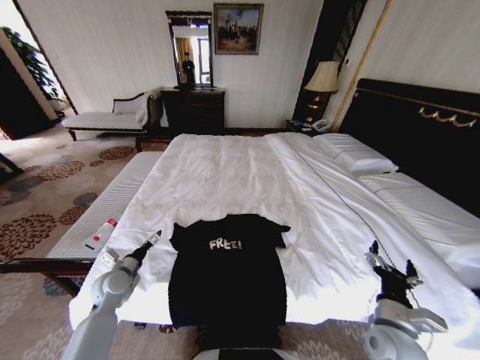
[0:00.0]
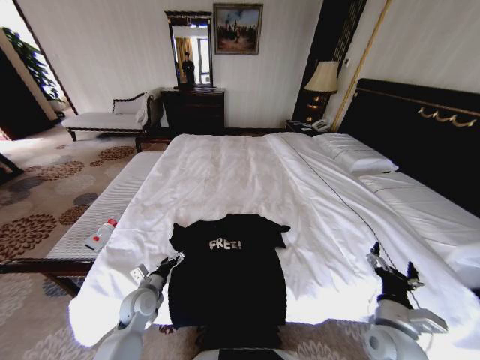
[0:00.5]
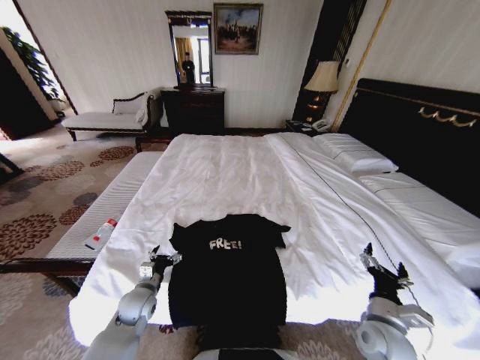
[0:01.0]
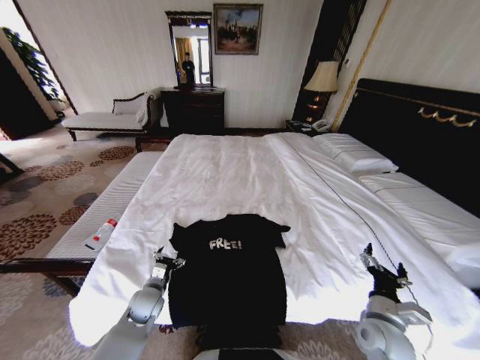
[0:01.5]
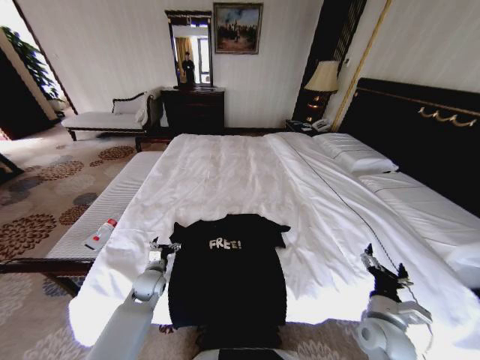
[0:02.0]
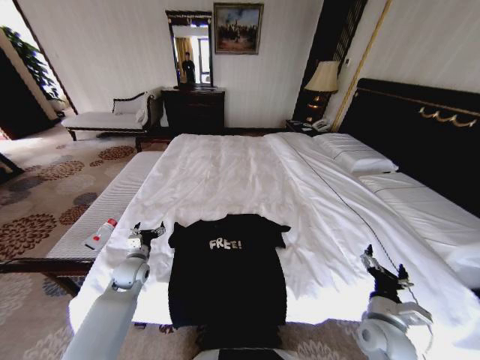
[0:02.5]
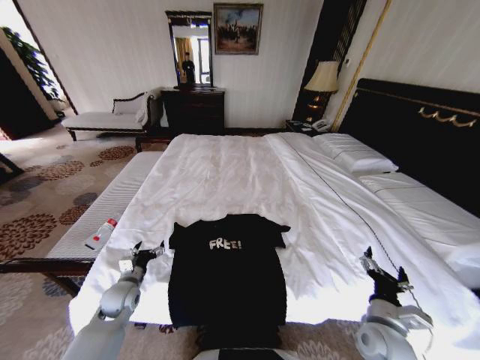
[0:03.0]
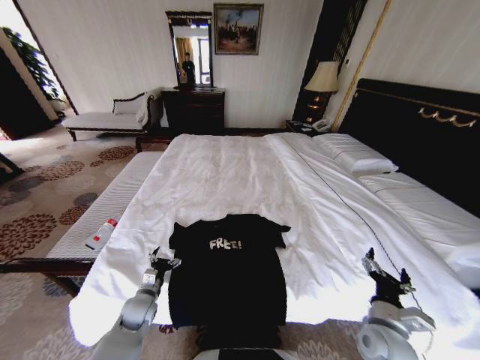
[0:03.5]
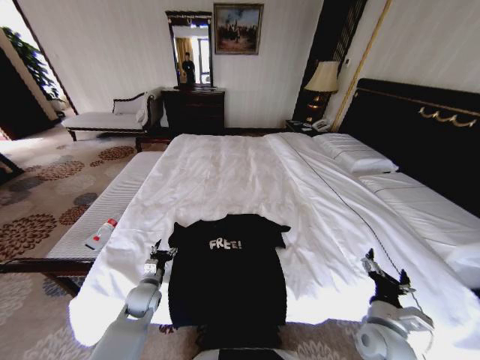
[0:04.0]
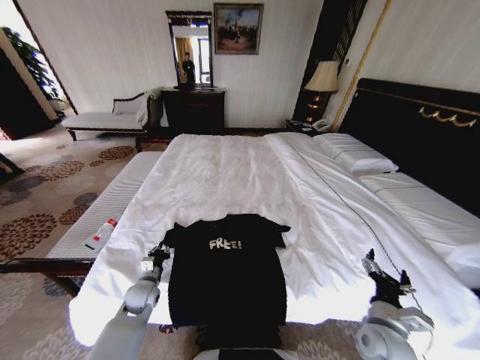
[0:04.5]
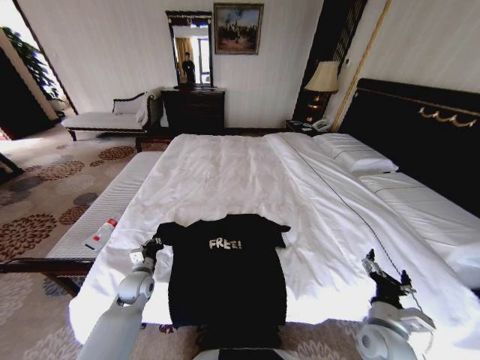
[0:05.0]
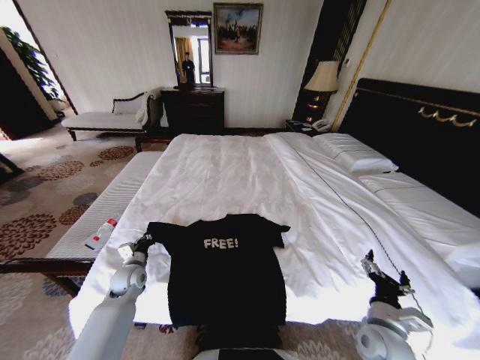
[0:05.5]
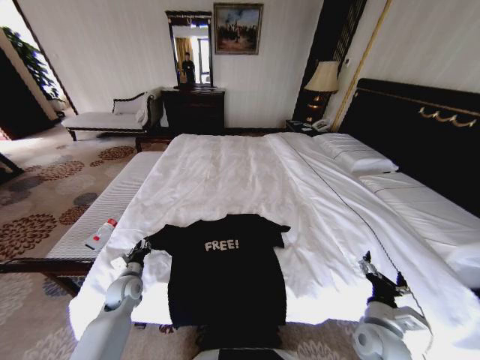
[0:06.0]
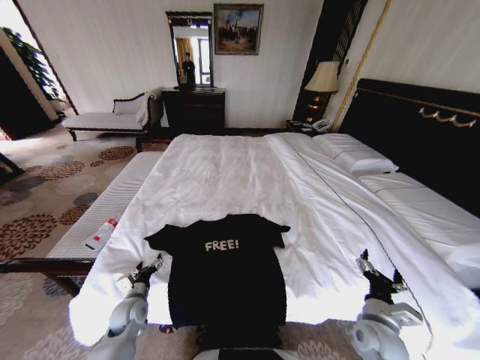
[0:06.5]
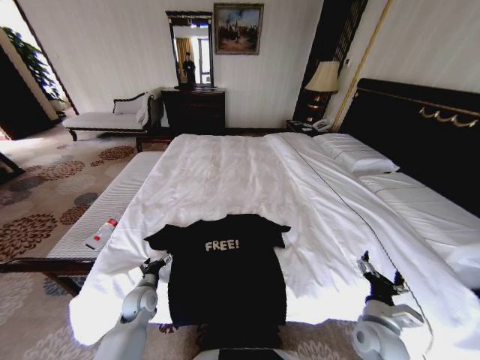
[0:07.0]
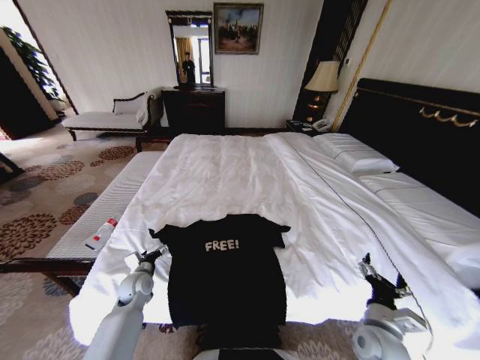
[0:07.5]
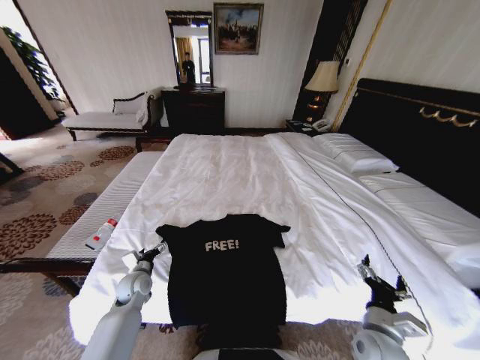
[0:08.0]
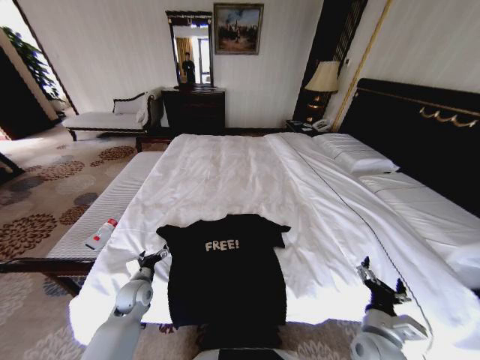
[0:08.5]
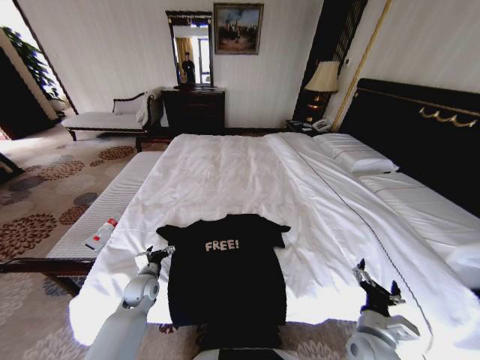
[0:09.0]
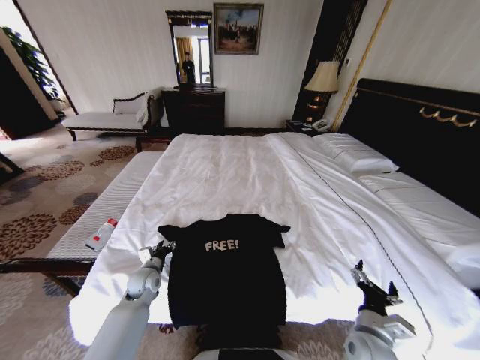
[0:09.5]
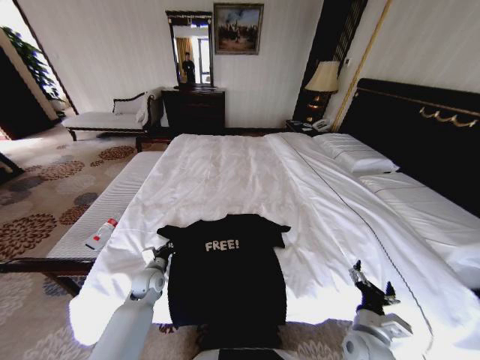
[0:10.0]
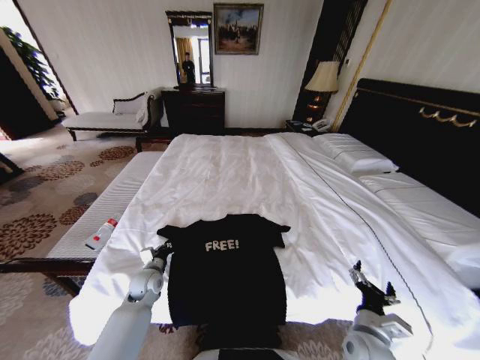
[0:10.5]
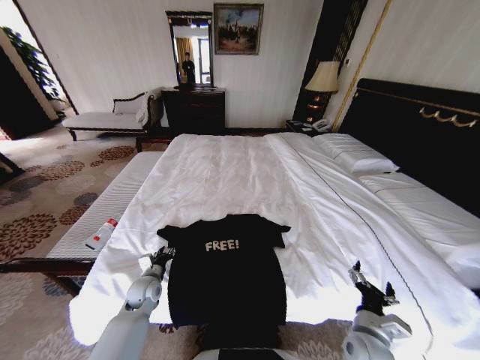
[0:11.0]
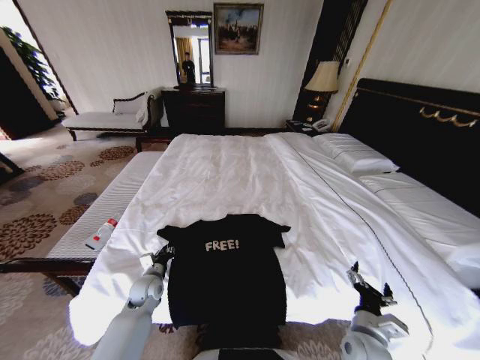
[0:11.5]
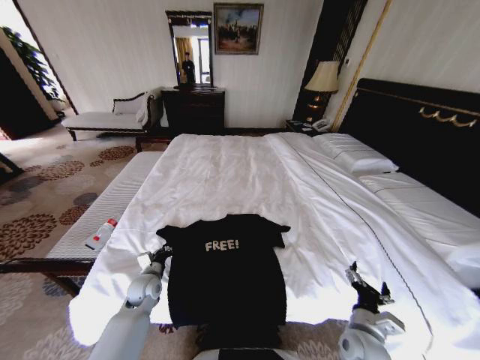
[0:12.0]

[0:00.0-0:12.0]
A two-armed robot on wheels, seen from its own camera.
Task of the whole recording: Fold the clothes on the bed.
0:00.0 to 0:02.0: The left gripper is displaced to the right and downward by about 10 cm.
0:04.0 to 0:06.0: The left gripper travels to the left by roughly 5 cm, and closes up.
0:06.0 to 0:08.0: The left gripper opens.
0:08.0 to 0:10.0: The left gripper closes up.
0:10.0 to 0:12.0: The left gripper opens and closes again.

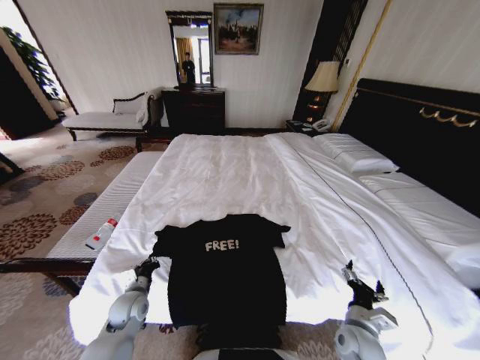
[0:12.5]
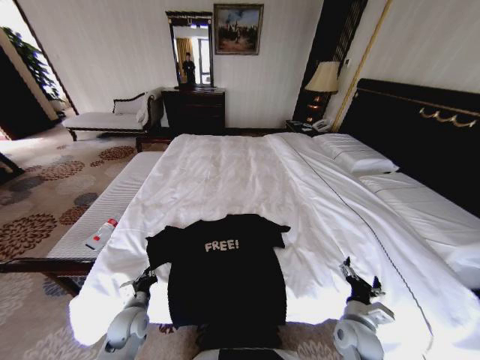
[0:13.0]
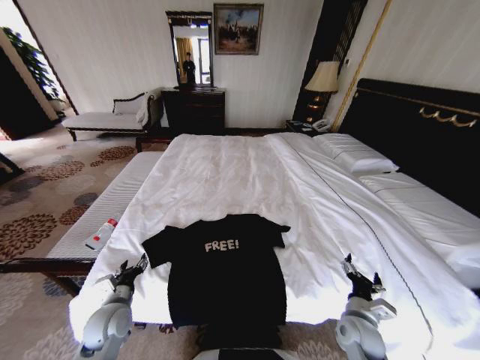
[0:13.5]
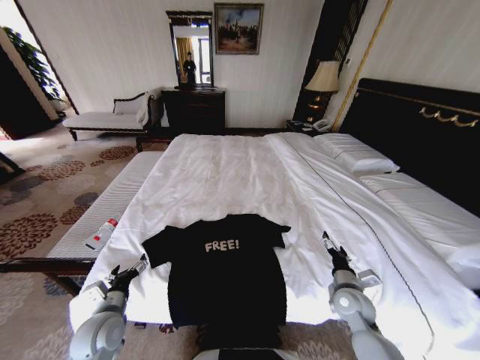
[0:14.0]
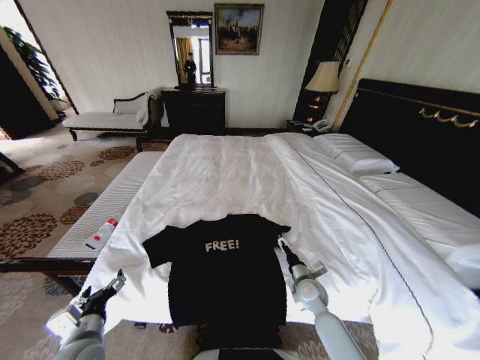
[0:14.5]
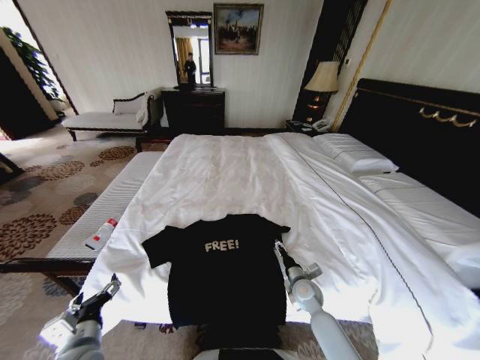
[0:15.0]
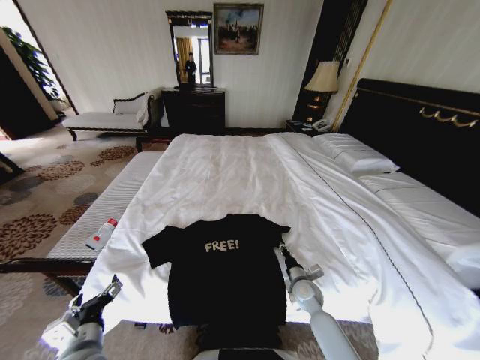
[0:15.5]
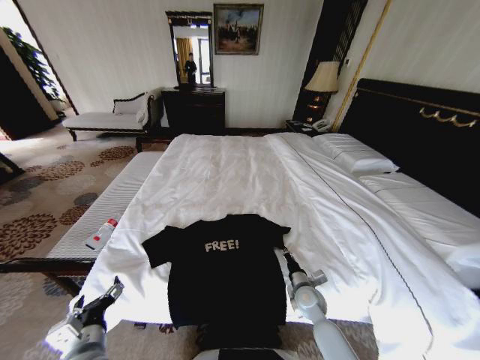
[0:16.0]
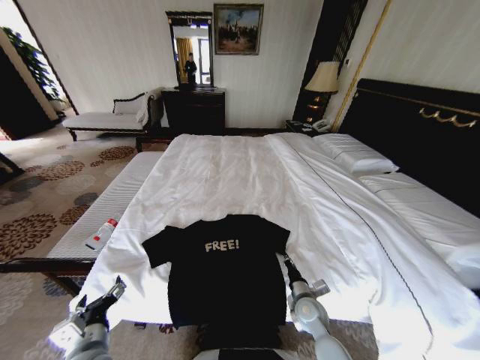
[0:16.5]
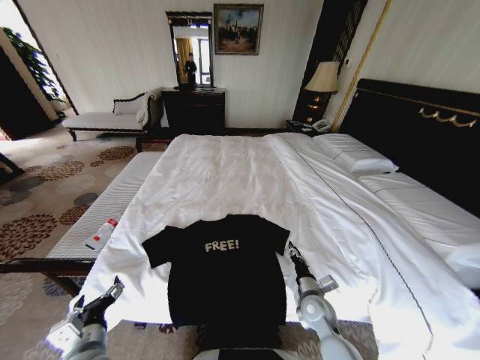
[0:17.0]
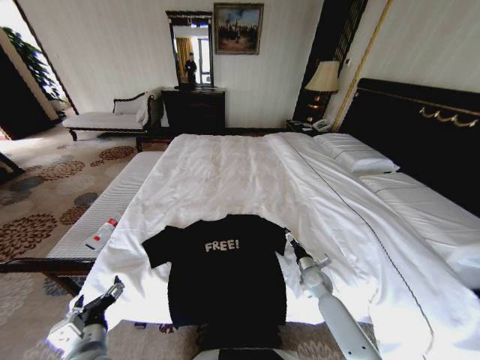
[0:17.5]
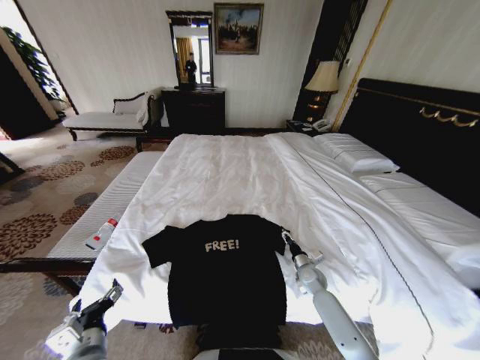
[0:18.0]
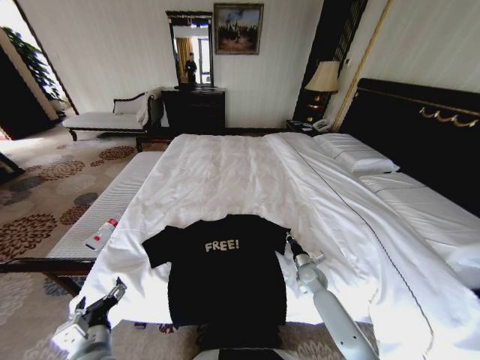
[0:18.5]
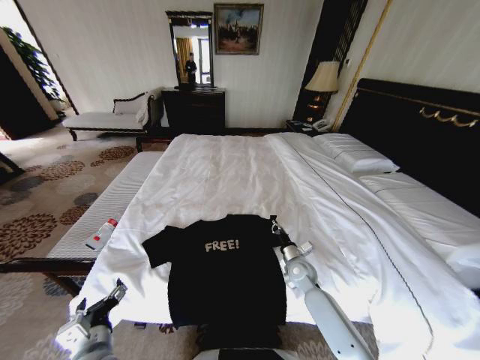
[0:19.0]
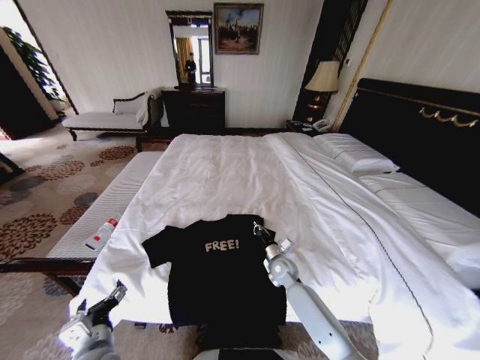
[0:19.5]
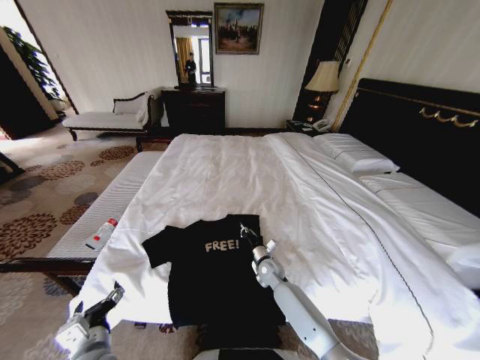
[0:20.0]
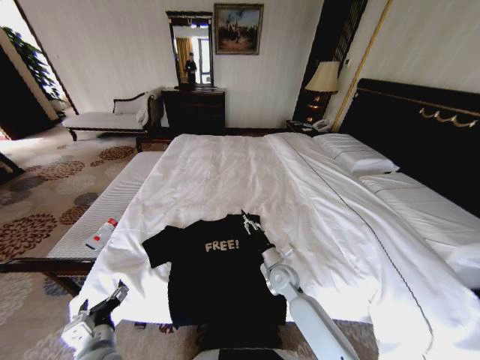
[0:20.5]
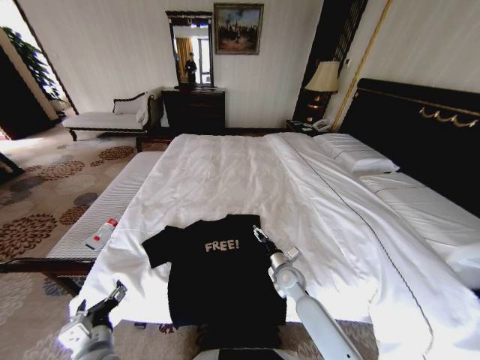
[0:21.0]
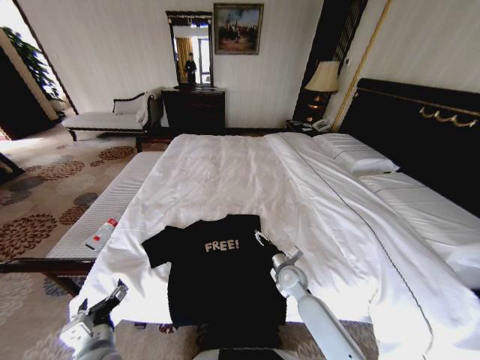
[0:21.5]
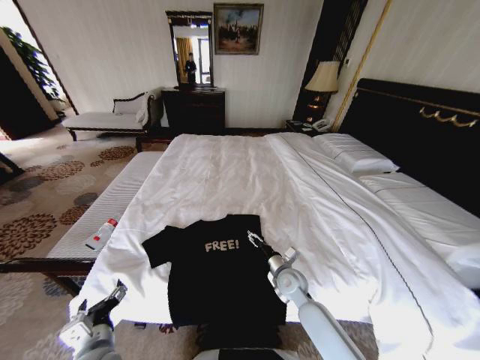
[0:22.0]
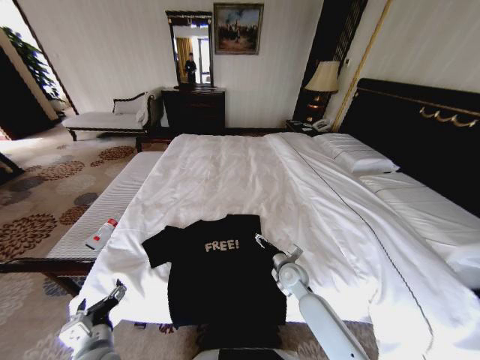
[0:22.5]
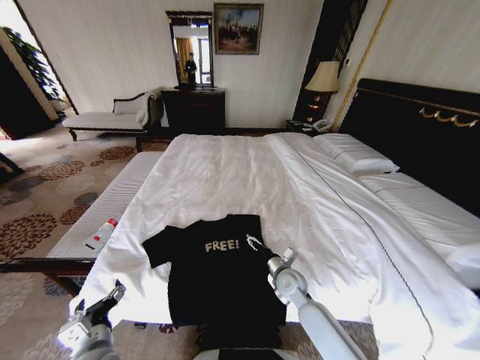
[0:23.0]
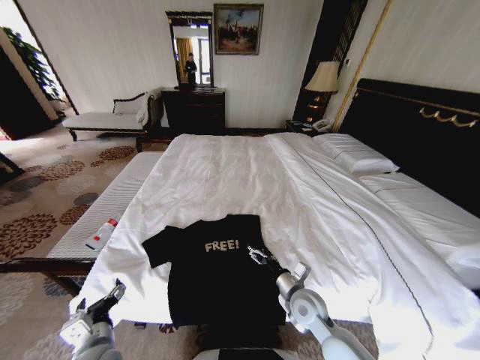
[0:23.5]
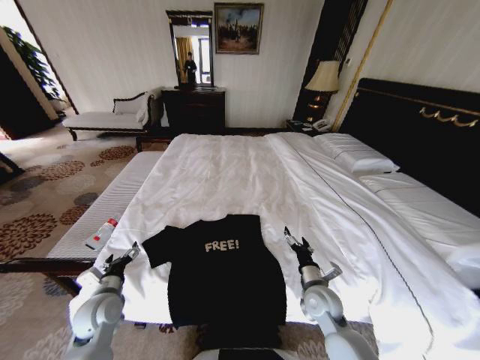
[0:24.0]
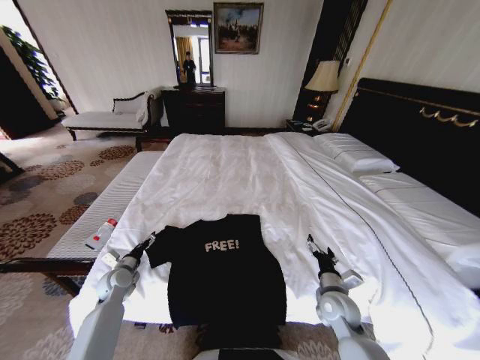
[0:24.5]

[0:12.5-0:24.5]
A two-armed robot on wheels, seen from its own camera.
Task of the whole recording: Fold the clothes on the bed.
0:12.5 to 0:14.5: The left gripper goes about 15 cm backward and upward, and opens up; the right gripper moves forward and to the left, roughly 15 cm.
0:14.5 to 0:16.5: The right gripper travels backward by some 5 cm, and closes its fingers.
0:16.5 to 0:18.5: The right gripper moves forward and to the right, roughly 15 cm, and opens and closes again.
0:18.5 to 0:20.5: The right gripper travels to the left and upward by some 15 cm, and opens.
0:20.5 to 0:22.5: The right gripper opens its fingers.
0:22.5 to 0:24.5: The right gripper is displaced backward and to the right by roughly 15 cm; the left gripper heads forward and to the left, covering some 25 cm.

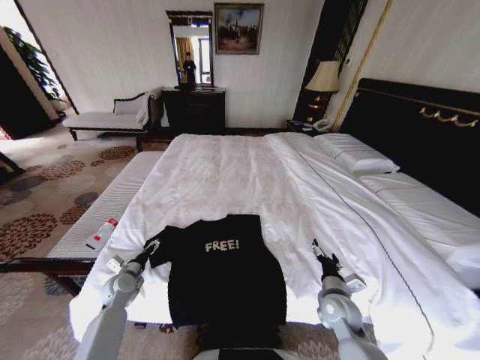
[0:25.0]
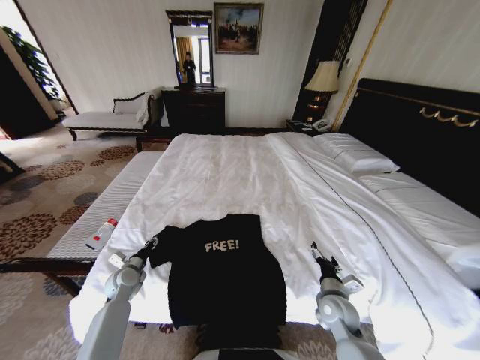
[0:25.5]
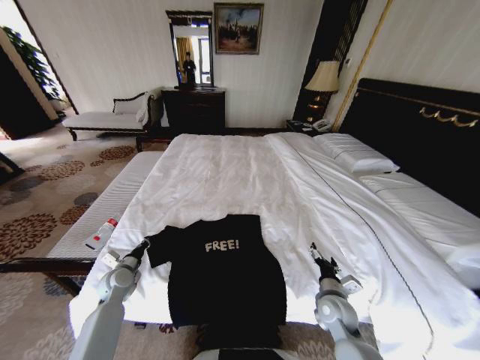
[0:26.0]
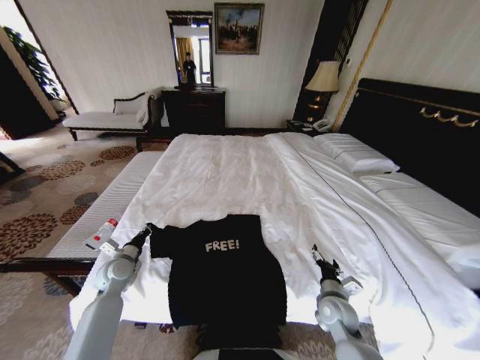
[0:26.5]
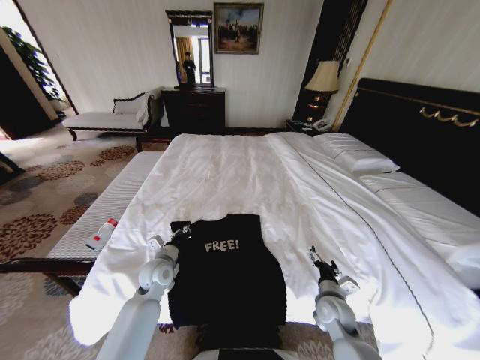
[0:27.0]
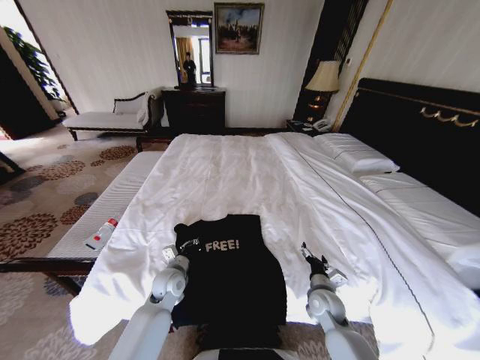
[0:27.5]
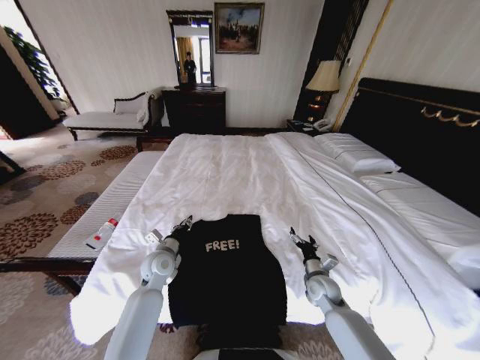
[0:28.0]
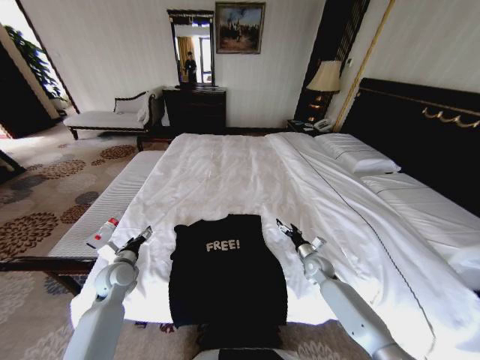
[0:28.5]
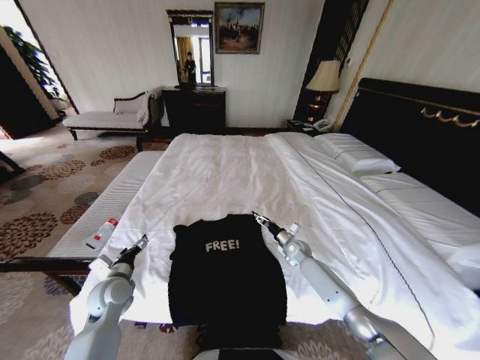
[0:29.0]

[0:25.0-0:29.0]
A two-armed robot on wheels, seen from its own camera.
Task of the whole recording: Fold the clothes on the bed.
0:25.0 to 0:27.0: The left gripper travels to the right and upward by roughly 15 cm, and closes its fingers.
0:27.0 to 0:29.0: The left gripper goes some 10 cm to the left and backward, and opens up. The right gripper travels forward by roughly 25 cm.
